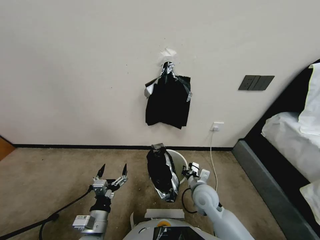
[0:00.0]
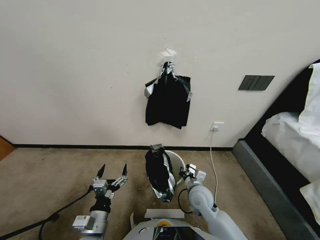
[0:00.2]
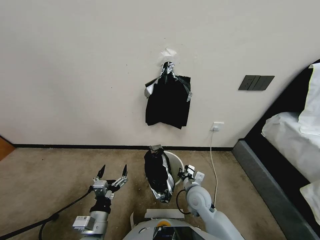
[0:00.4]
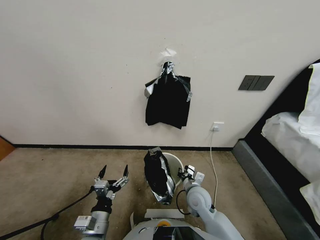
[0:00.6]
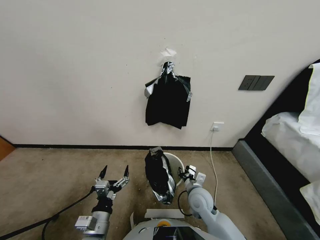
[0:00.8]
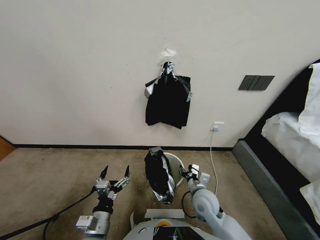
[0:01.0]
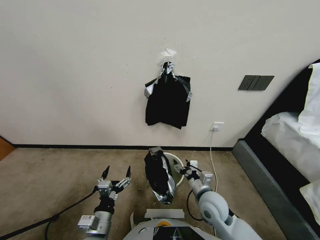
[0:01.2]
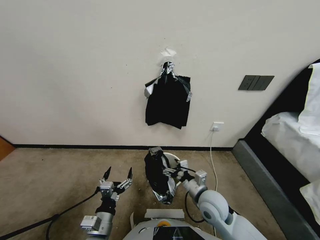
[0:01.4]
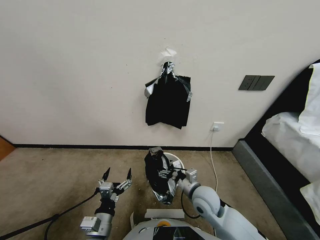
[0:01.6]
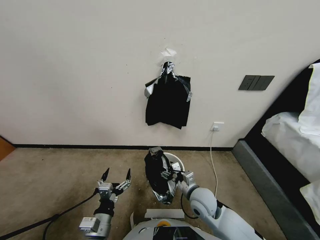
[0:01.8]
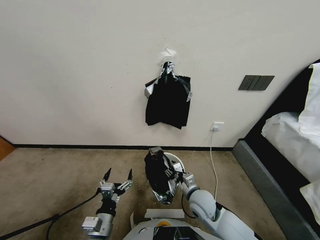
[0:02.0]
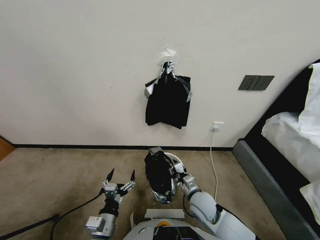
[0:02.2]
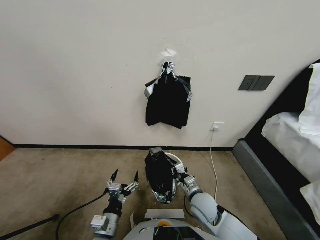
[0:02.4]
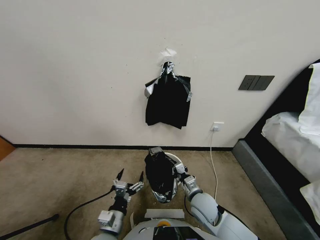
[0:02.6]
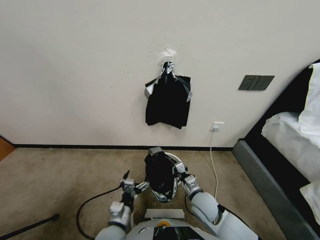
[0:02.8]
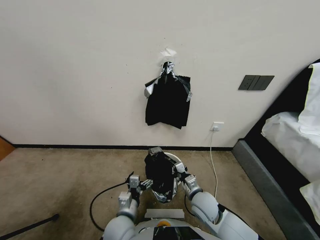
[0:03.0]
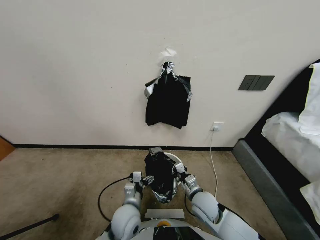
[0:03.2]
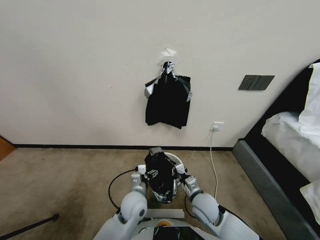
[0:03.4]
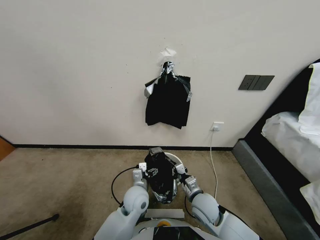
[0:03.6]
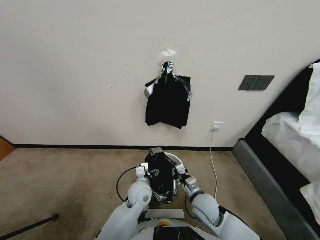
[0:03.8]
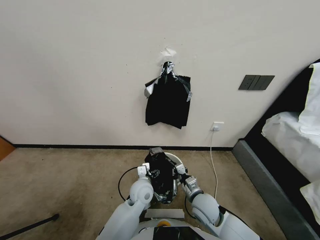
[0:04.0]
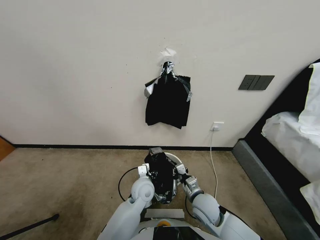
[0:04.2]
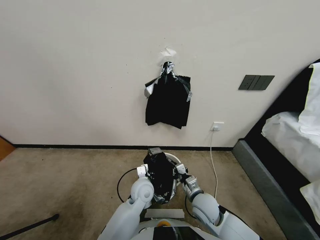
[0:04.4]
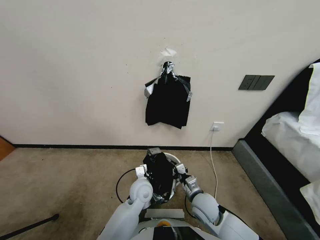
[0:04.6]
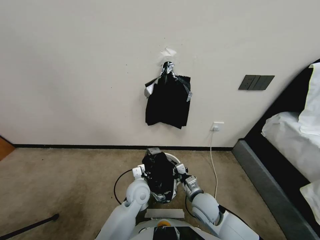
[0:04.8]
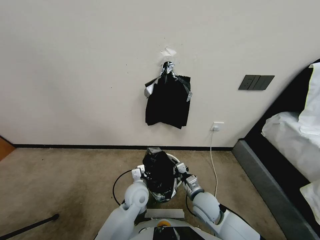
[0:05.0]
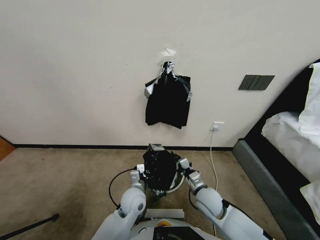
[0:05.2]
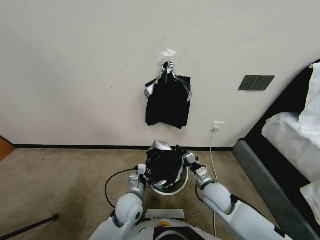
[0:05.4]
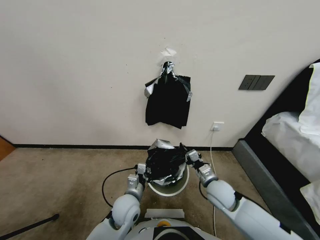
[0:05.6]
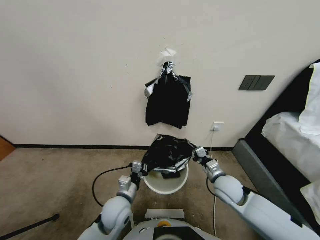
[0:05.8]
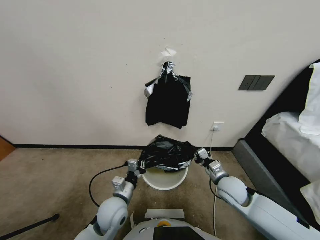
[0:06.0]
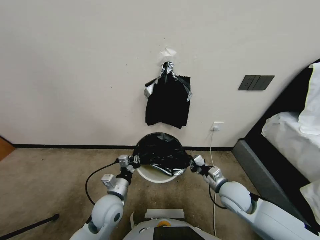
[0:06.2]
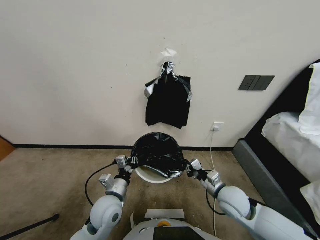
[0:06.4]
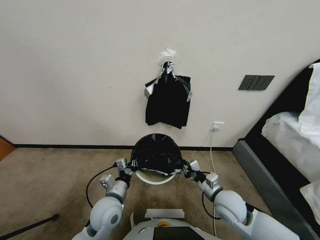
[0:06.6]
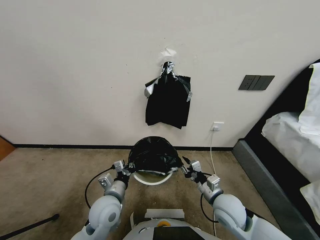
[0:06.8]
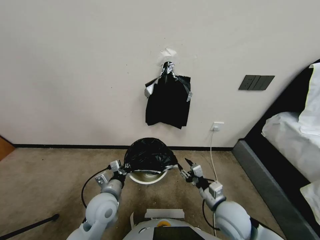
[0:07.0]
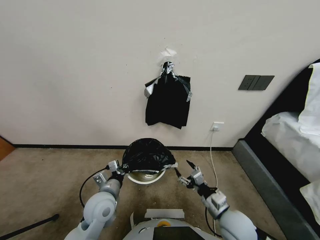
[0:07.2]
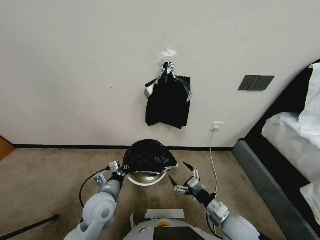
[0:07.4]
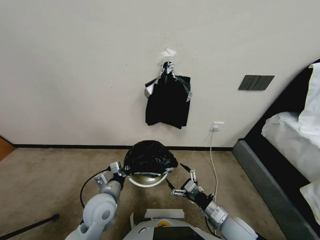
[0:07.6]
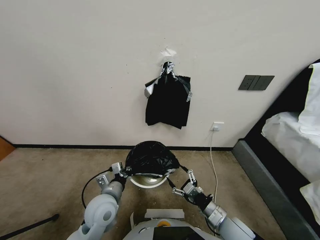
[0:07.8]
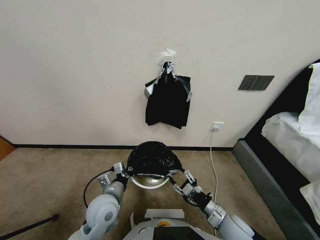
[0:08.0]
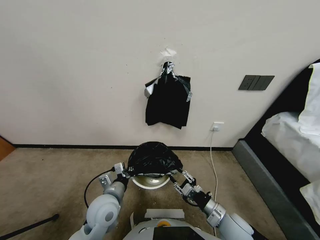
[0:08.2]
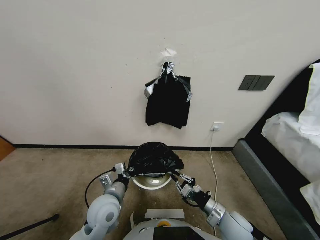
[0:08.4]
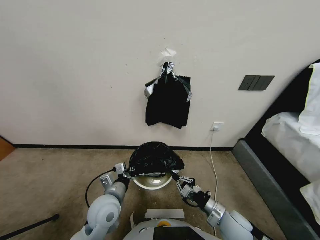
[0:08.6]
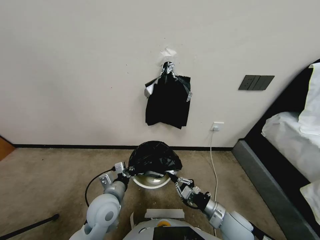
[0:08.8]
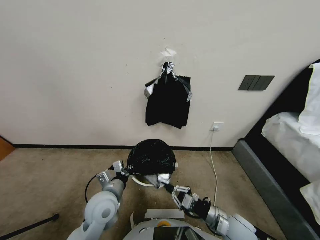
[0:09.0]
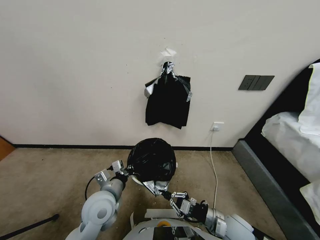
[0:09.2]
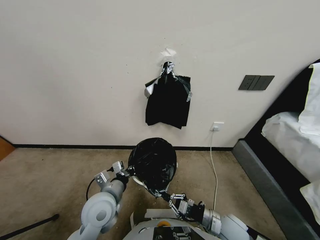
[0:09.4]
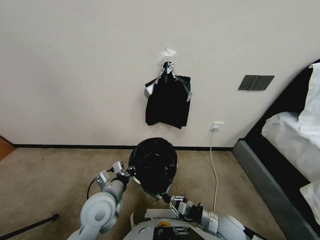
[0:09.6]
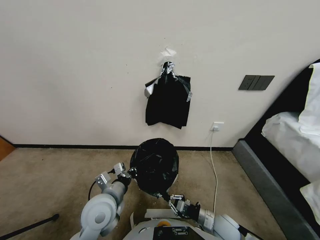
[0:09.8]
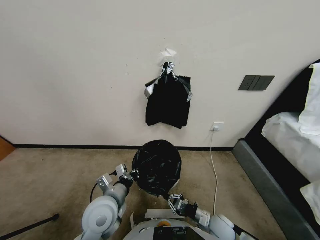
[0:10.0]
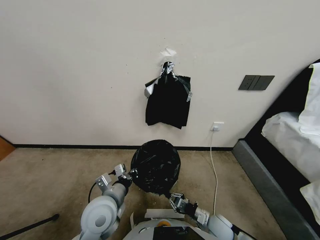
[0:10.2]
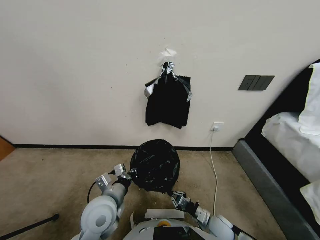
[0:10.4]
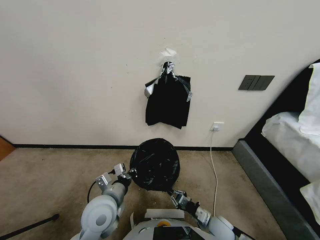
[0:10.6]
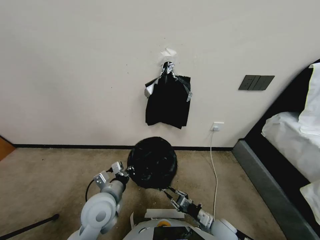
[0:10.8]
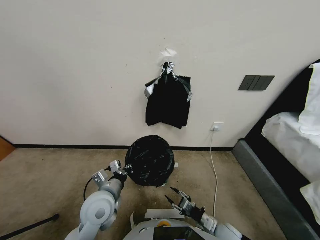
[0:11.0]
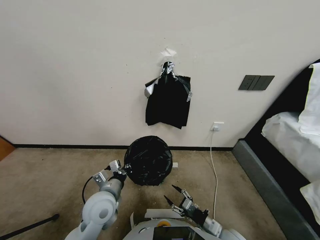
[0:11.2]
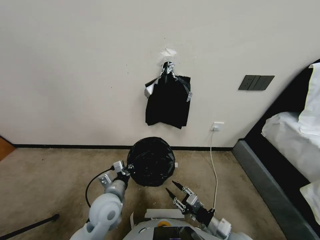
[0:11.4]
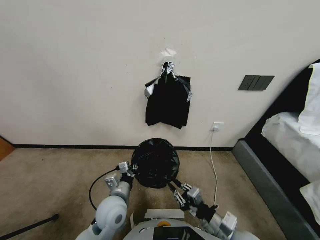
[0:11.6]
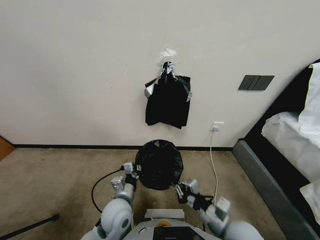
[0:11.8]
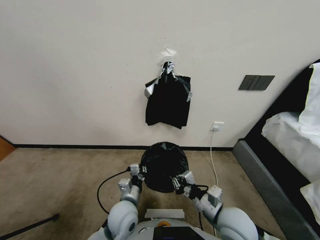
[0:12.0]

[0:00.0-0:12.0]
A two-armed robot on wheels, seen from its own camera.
Task of the whole recording: Place a trash bag onto the trash bin.
0:00.0 to 0:01.6: The right gripper opens.
0:01.6 to 0:03.0: The left gripper shifts approximately 10 cm to the right and forward. The right gripper closes its fingers.
0:03.0 to 0:04.4: The left gripper heads forward, covering roughly 10 cm, and closes.
0:04.4 to 0:06.0: The right gripper shifts roughly 10 cm to the right and upward. The left gripper is displaced to the left and backward by some 10 cm.
0:06.0 to 0:07.6: The right gripper goes approximately 10 cm backward, and opens.
0:07.6 to 0:09.0: The right gripper closes up.
0:09.0 to 0:10.4: The right gripper is displaced downward by roughly 10 cm.
0:10.4 to 0:12.0: The left gripper heads downward and to the right, covering approximately 10 cm. Meanwhile the right gripper is displaced upward by some 20 cm, and opens, then closes once more.

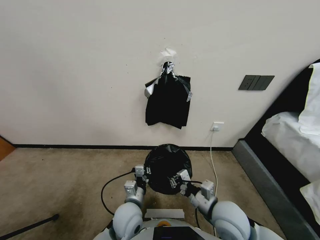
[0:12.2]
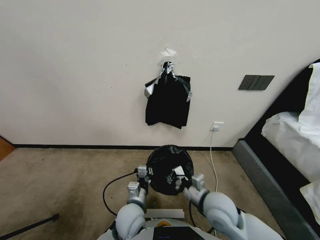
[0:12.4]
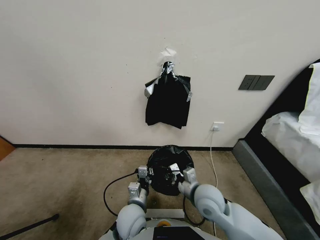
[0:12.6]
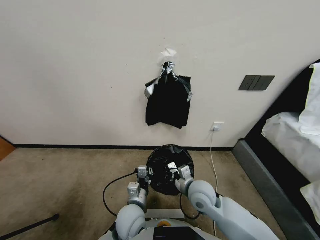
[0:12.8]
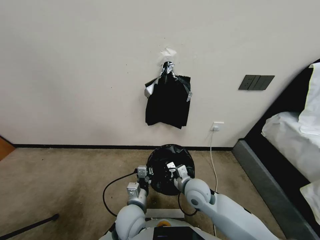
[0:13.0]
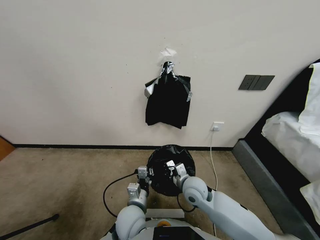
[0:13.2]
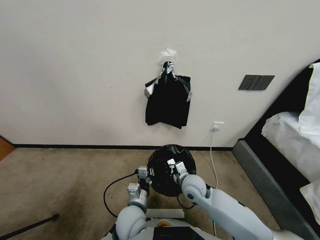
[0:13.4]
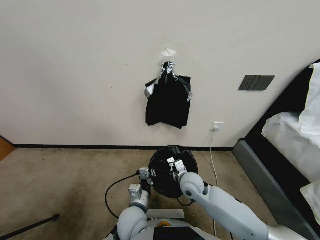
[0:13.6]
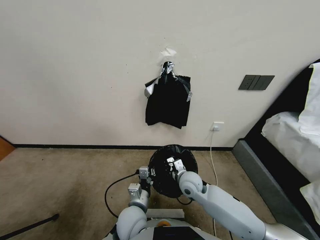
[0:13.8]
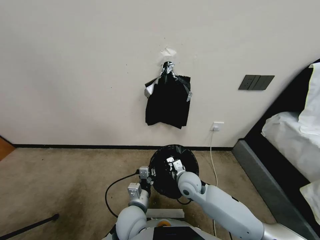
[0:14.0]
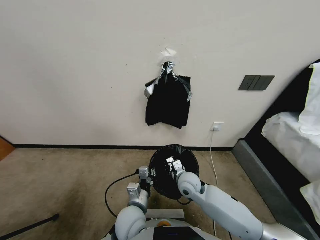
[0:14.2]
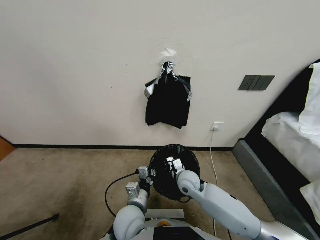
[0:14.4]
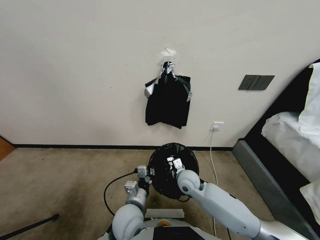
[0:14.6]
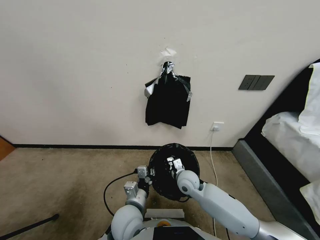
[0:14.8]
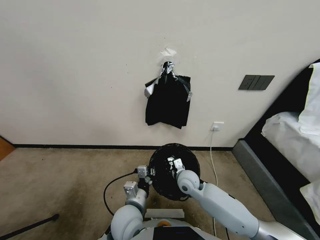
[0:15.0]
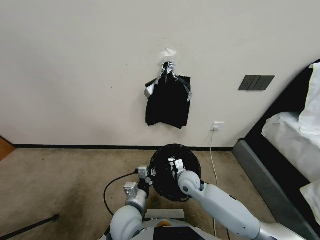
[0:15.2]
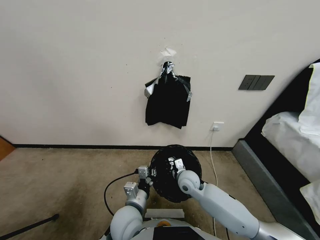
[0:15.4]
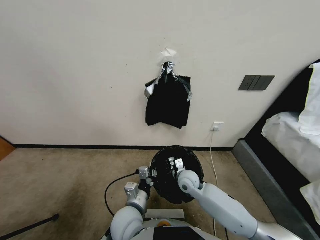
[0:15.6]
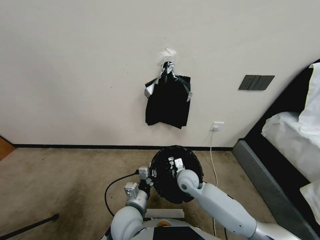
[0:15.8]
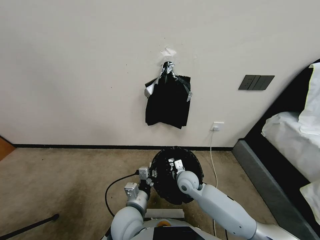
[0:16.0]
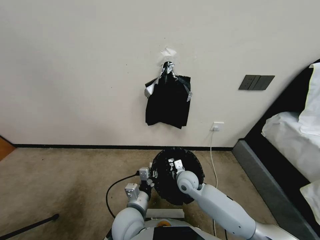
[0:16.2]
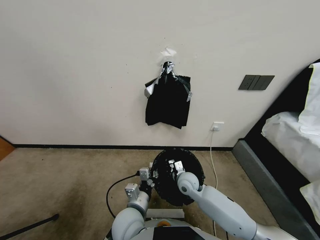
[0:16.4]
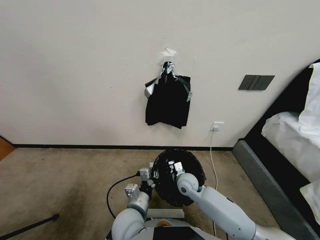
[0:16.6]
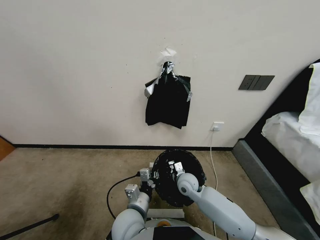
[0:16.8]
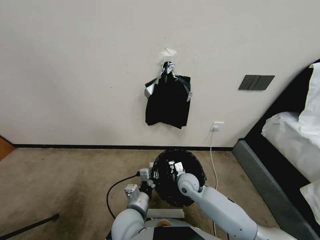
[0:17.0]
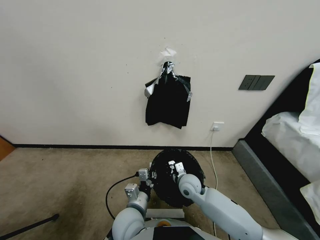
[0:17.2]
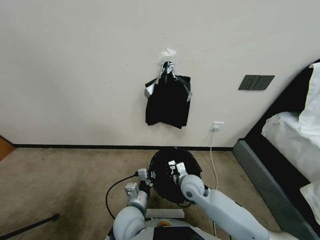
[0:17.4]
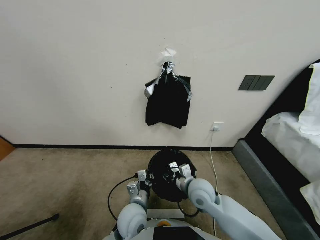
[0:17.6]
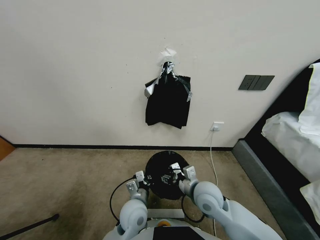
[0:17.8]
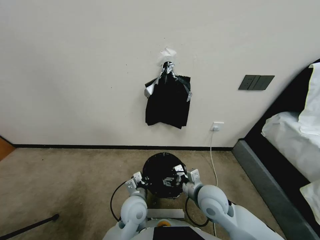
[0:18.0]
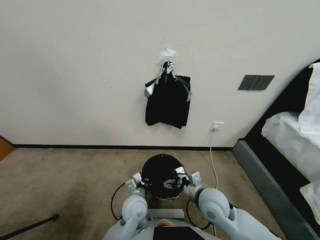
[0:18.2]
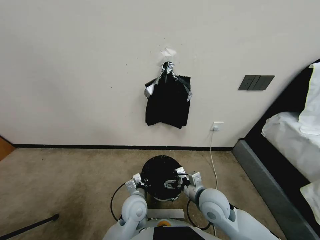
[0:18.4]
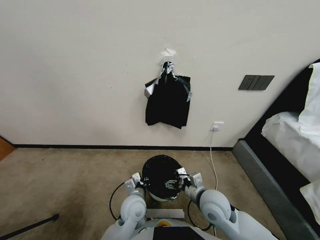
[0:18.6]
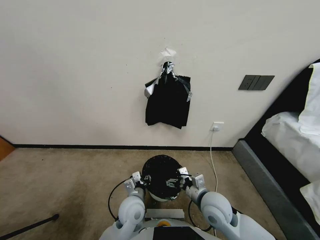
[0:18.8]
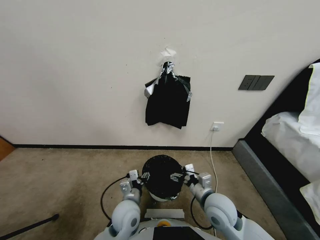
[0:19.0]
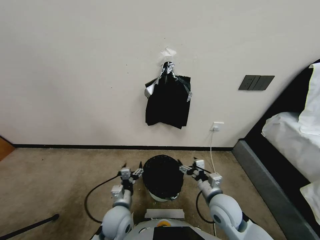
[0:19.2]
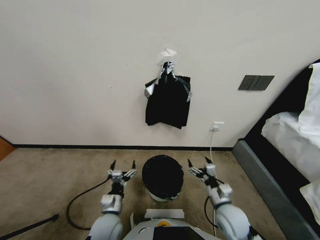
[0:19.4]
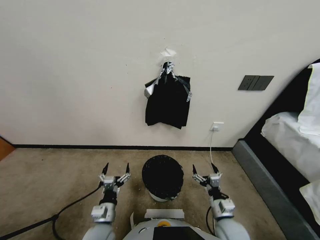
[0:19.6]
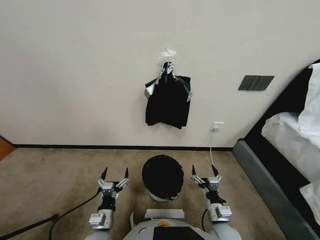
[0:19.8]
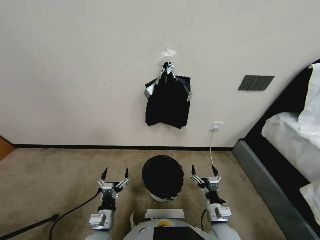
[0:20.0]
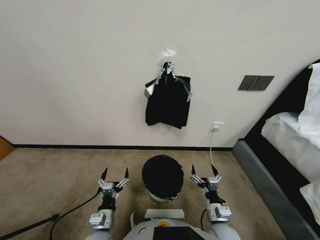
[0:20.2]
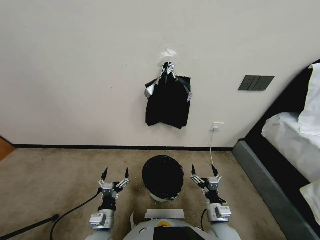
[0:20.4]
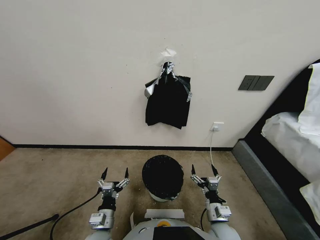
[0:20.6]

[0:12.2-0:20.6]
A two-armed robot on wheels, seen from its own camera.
Task of the whole recording: Place a trash bag onto the trash bin.
0:12.2 to 0:13.6: The right gripper travels forward, to the left and downward by some 15 cm.
0:13.6 to 0:16.4: The grippers stay close to where they were, moving slightly.
0:16.4 to 0:17.8: The left gripper moves roughly 5 cm, while the right gripper moves upward and backward, about 15 cm, and opens.
0:17.8 to 0:19.2: The right gripper shifts some 10 cm to the right and downward; the left gripper shifts approximately 10 cm to the left, and opens its fingers.
0:19.2 to 0:20.6: The right gripper shifts about 10 cm backward and downward, while the left gripper travels backward by some 5 cm.
